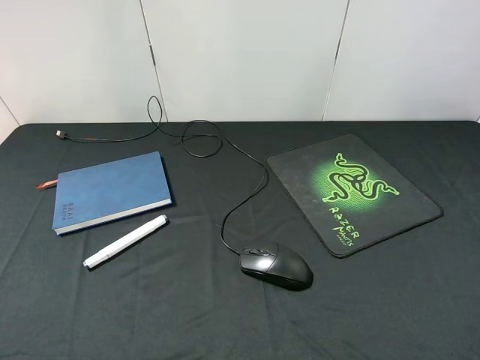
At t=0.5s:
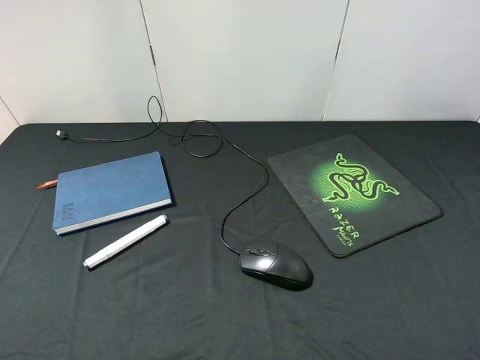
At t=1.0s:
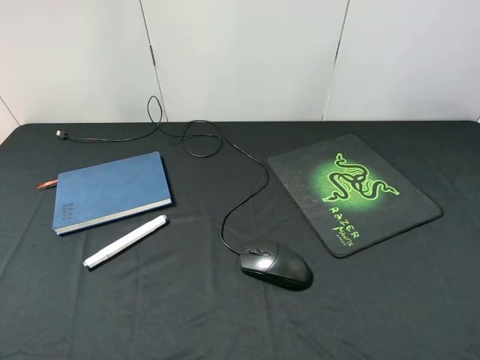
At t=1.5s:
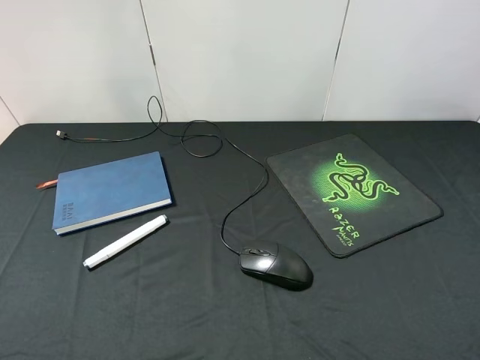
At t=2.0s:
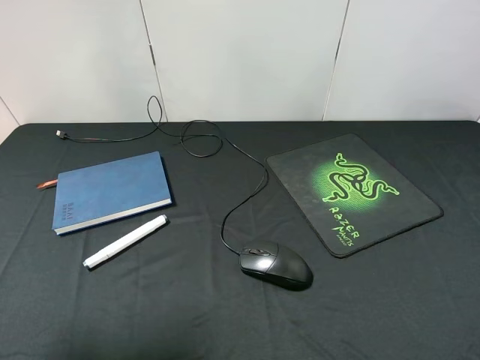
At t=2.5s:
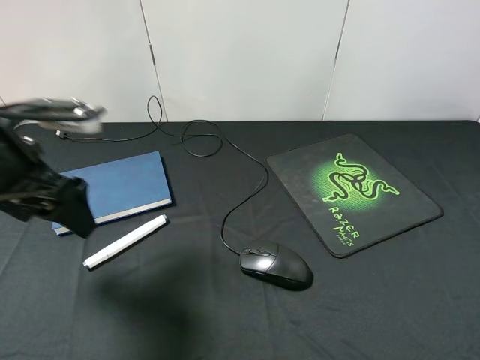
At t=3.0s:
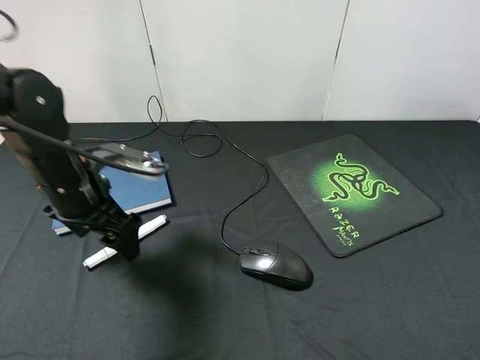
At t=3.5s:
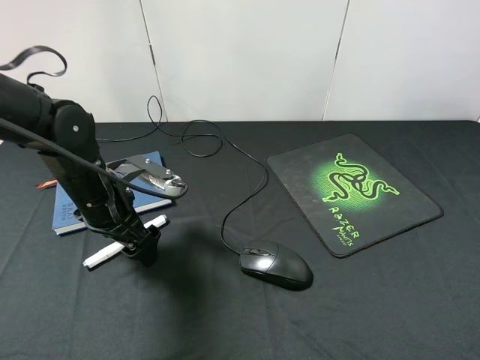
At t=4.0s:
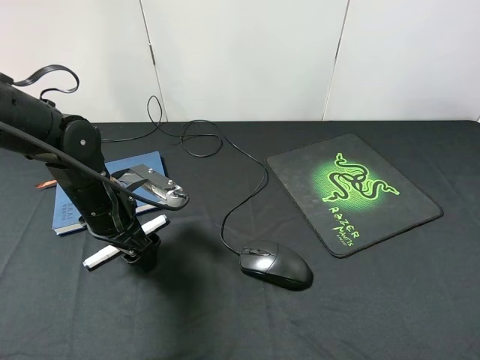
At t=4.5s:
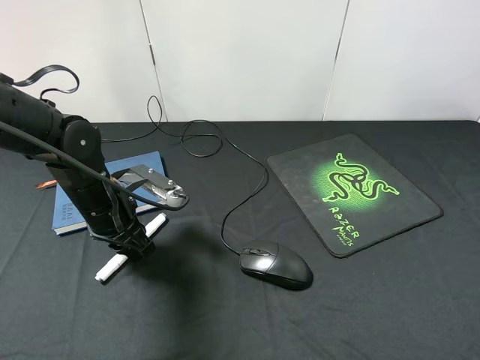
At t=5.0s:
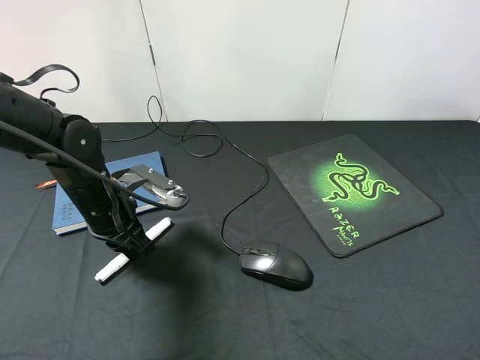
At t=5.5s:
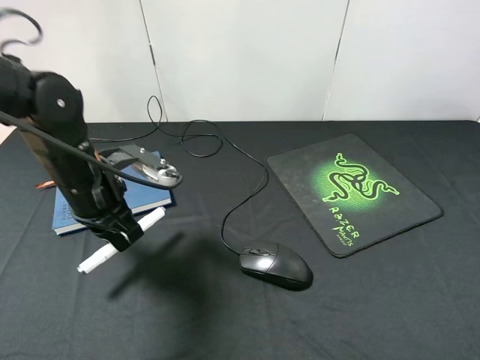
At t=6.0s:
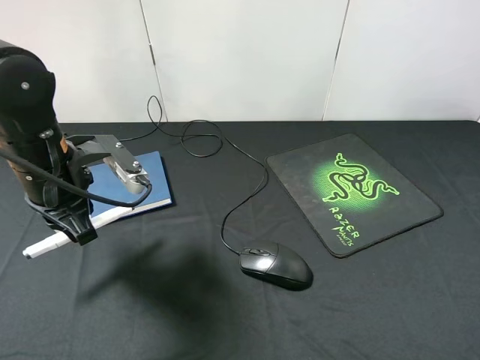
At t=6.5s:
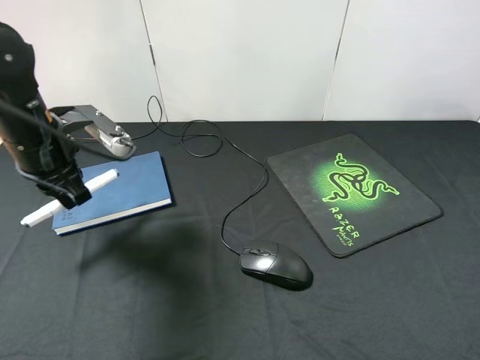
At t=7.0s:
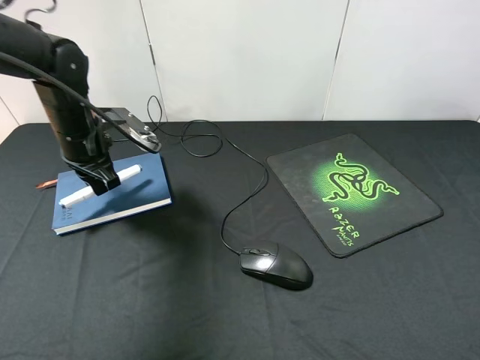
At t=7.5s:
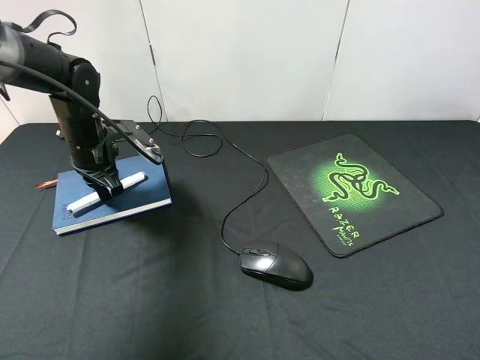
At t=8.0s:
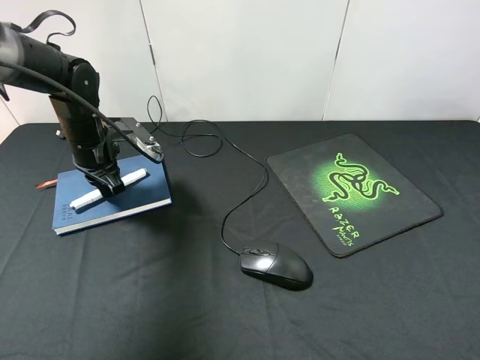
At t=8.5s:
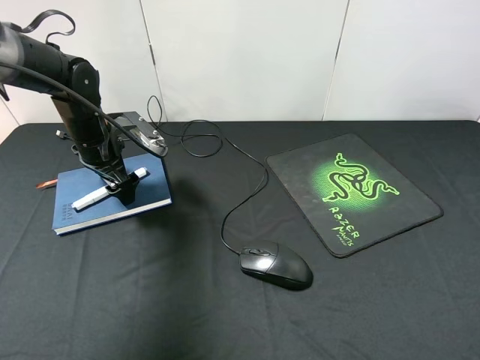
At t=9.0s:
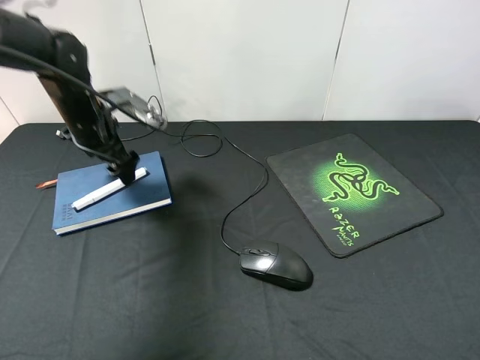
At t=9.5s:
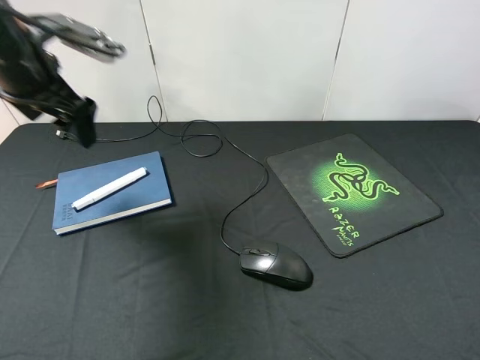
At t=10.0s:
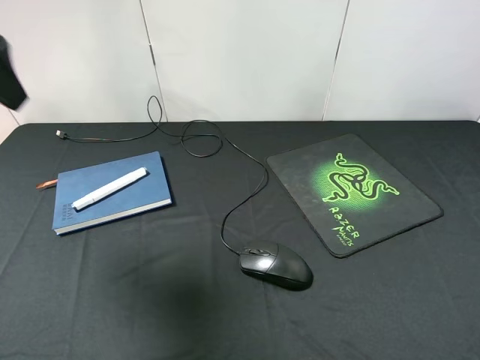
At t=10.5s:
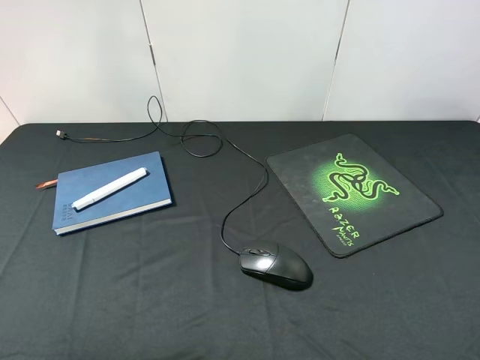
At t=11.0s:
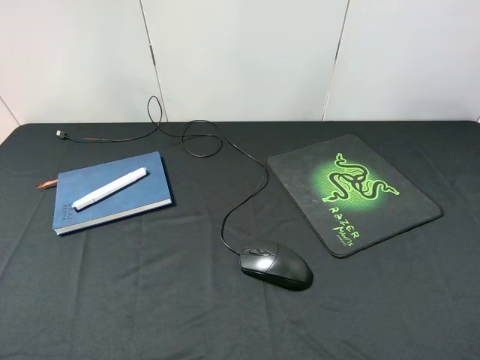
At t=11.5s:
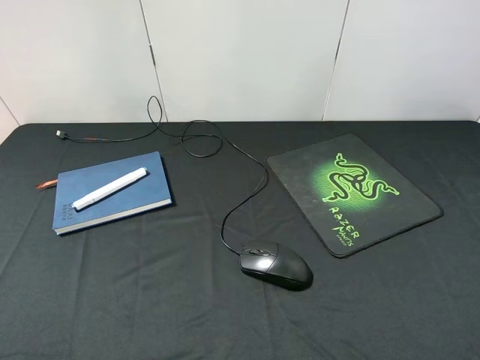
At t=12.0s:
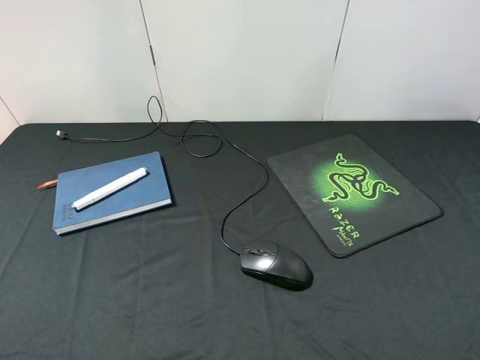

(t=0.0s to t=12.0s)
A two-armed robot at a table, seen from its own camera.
Step, t=0.0s - t=5.5s: Pick up the marker pen with left gripper.
Step, t=6.0s - t=9.0s: Place the marker pen on the notebook with left gripper.
t=0.0s - t=2.0s: The left gripper heads forward, covering some 15 cm.
t=2.0s - t=4.0s: The left gripper travels downward, forward and to the right by some 25 cm.
t=4.0s - t=6.0s: The left gripper shifts some 10 cm upward, and closes up.
t=6.0s - t=8.0s: The left gripper shifts some 15 cm forward and downward.
t=8.0s - t=10.0s: The left gripper travels upward and backward by approximately 30 cm, and opens.
t=10.0s - t=12.0s: The left gripper shifts approximately 25 cm backward and downward.

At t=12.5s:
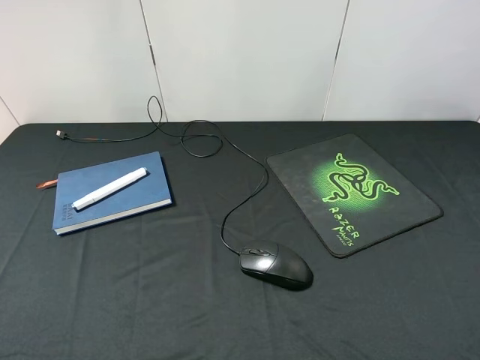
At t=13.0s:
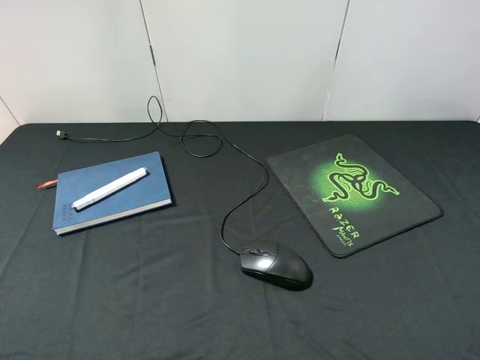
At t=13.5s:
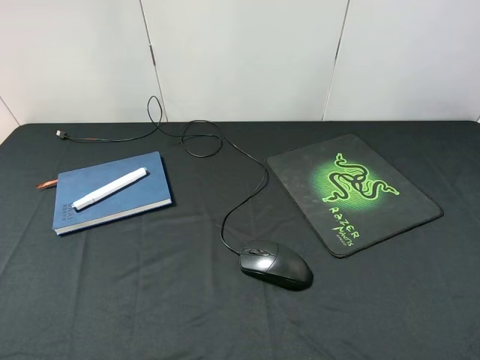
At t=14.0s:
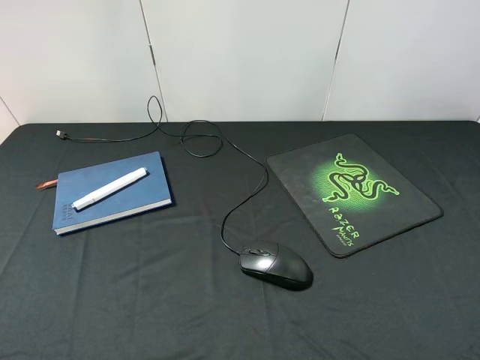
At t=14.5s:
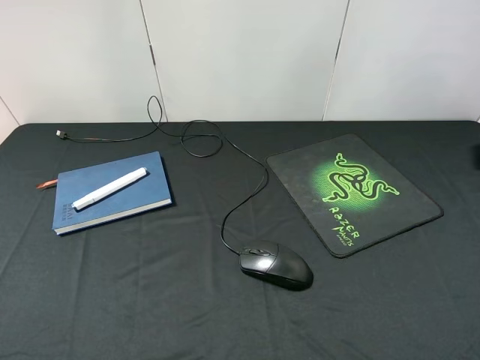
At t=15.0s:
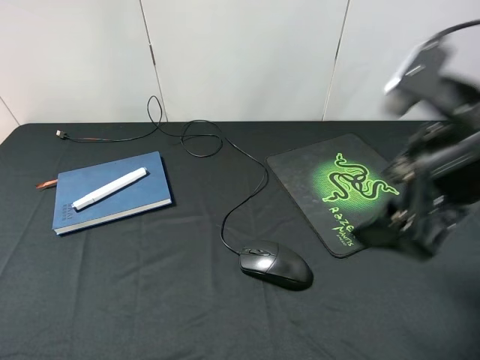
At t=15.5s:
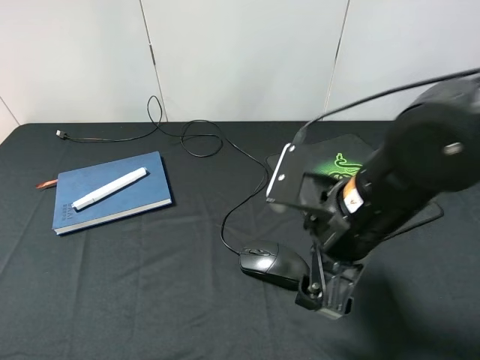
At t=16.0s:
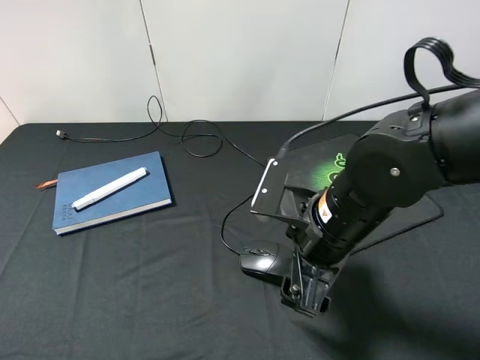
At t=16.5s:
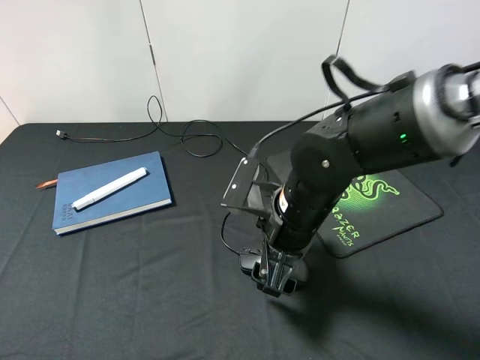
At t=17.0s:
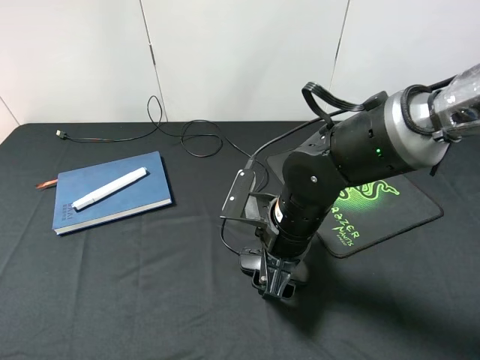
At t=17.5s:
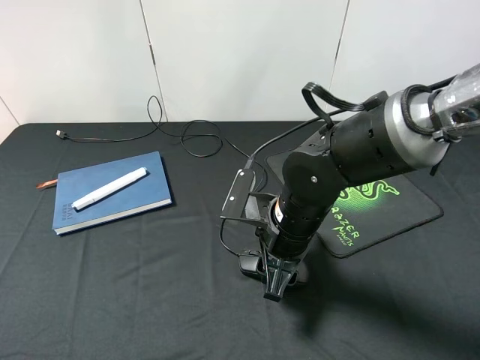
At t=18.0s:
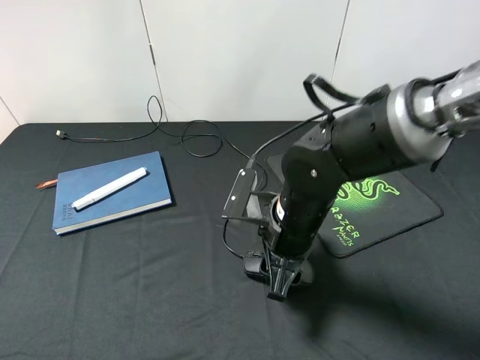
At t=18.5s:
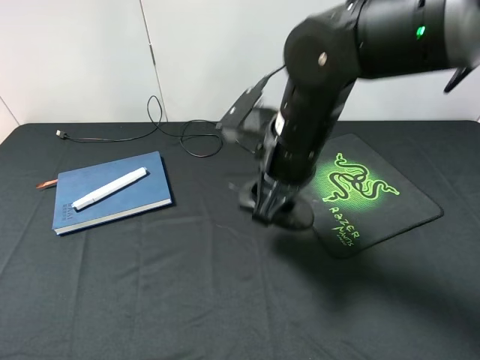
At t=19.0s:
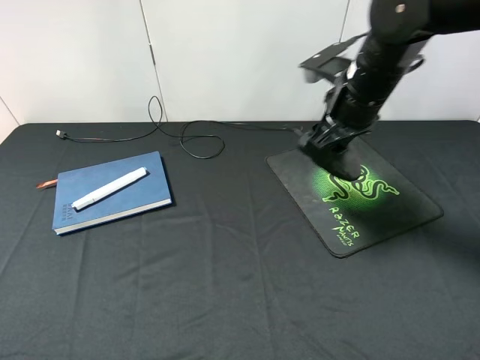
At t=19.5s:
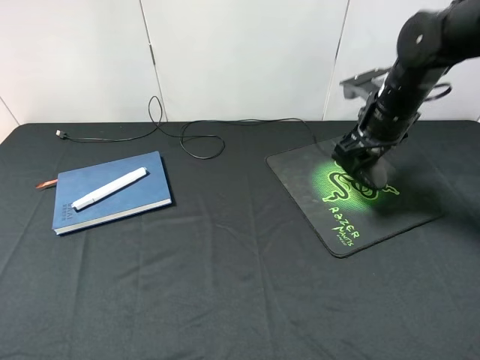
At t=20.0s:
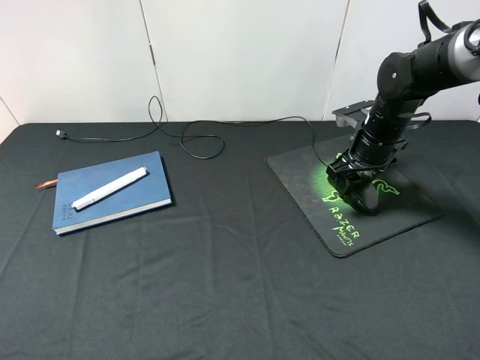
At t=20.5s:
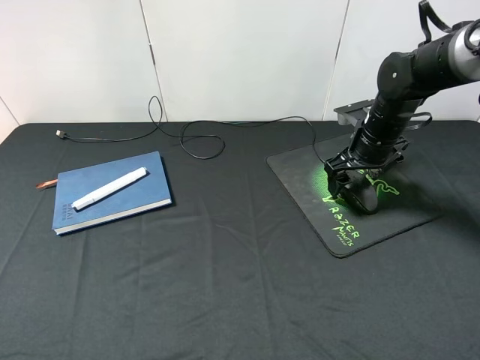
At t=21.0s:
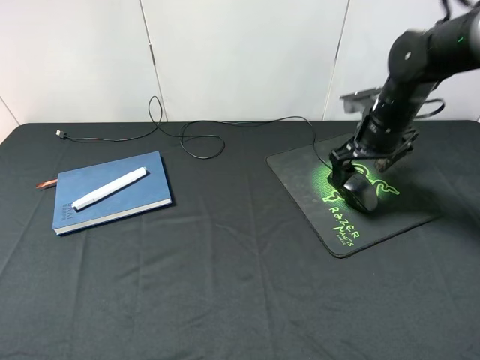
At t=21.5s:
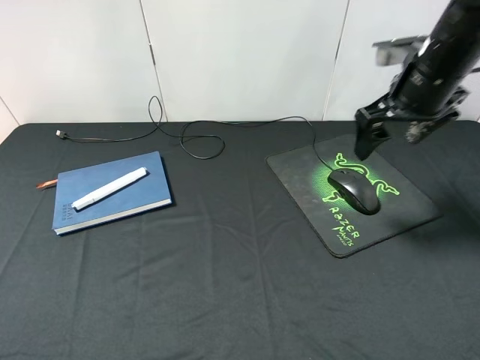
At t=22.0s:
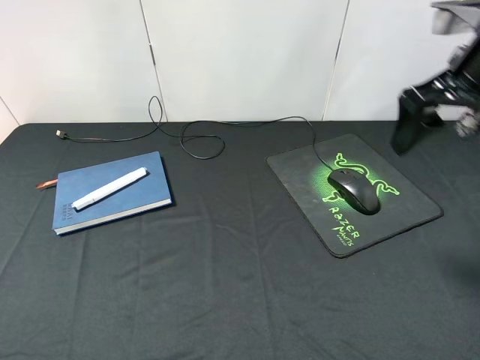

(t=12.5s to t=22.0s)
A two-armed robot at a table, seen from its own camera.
Step, t=12.5s - t=18.0s: Pick up the mouse with right gripper.
Step, t=18.5s - t=21.0s: Place the mouse on the mouse pad with right gripper.
t=14.5s - t=16.5s: The right gripper travels downward, to the left and forward by roughly 30 cm.
t=16.5s - t=18.0s: The right gripper closes up.
t=18.0s - t=20.0s: The right gripper goes approximately 20 cm forward and to the right.
t=20.0s - t=22.0s: The right gripper goes approximately 20 cm upward and backward, and opens.
